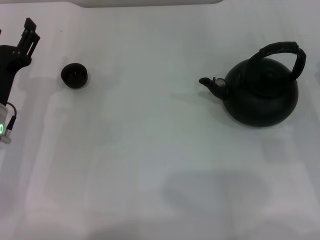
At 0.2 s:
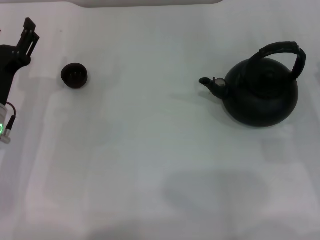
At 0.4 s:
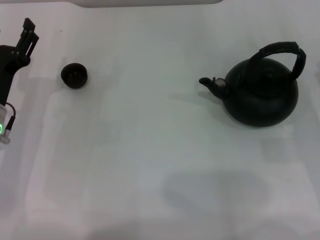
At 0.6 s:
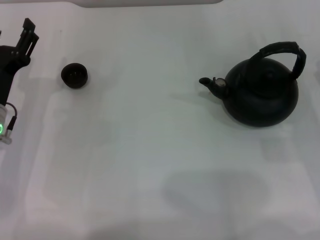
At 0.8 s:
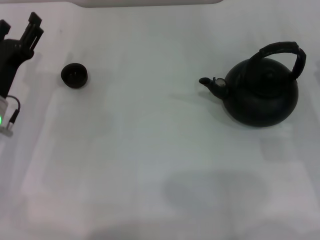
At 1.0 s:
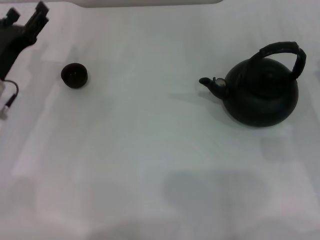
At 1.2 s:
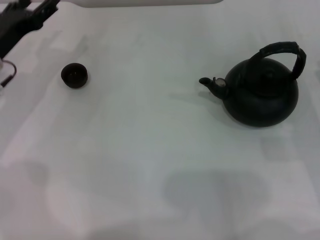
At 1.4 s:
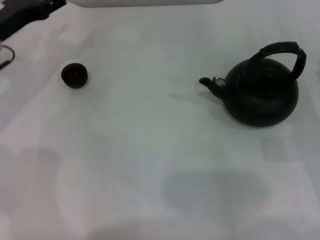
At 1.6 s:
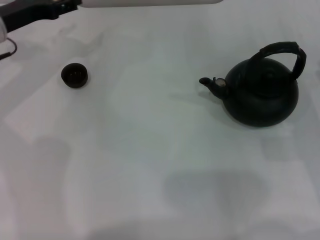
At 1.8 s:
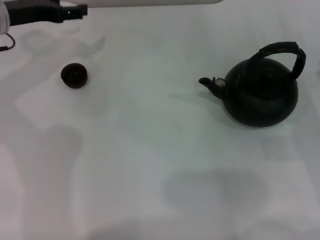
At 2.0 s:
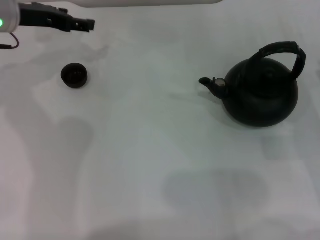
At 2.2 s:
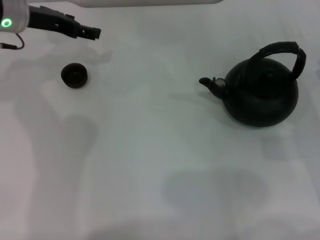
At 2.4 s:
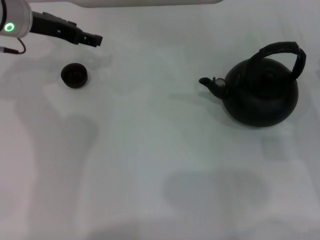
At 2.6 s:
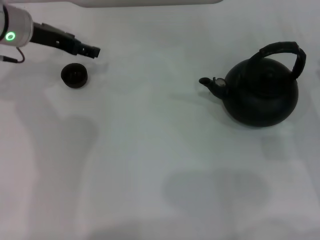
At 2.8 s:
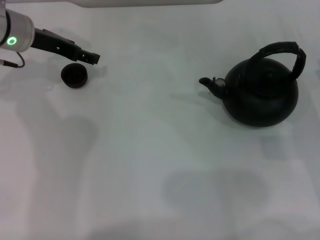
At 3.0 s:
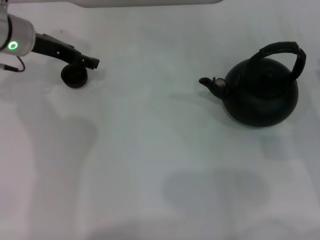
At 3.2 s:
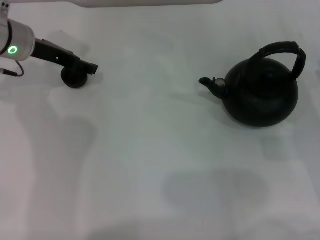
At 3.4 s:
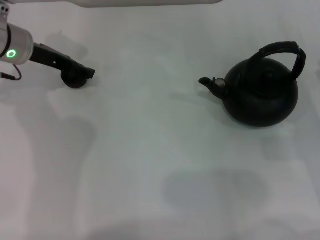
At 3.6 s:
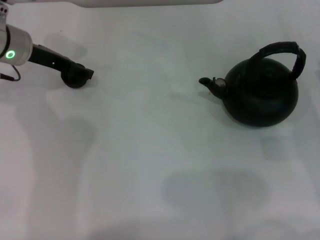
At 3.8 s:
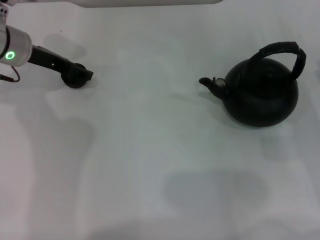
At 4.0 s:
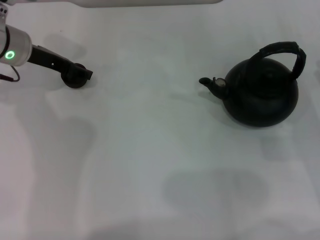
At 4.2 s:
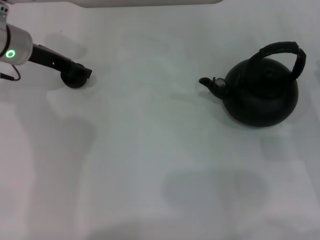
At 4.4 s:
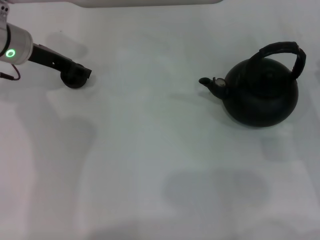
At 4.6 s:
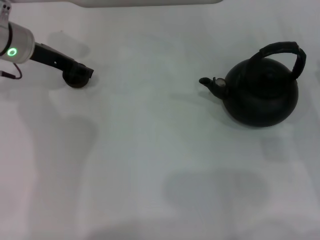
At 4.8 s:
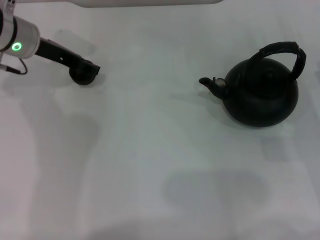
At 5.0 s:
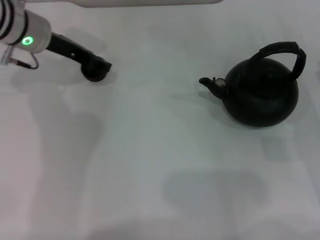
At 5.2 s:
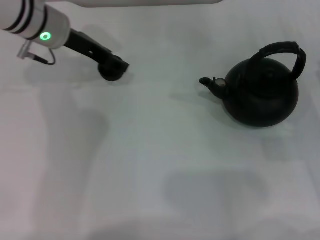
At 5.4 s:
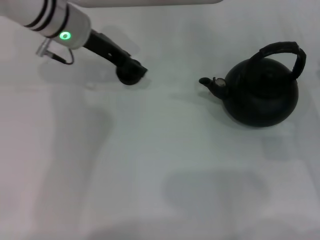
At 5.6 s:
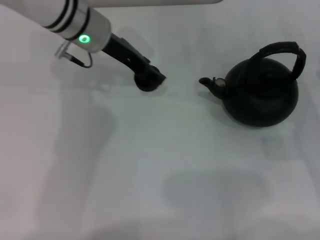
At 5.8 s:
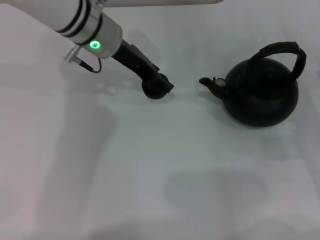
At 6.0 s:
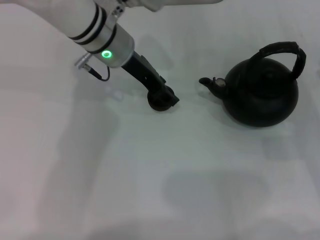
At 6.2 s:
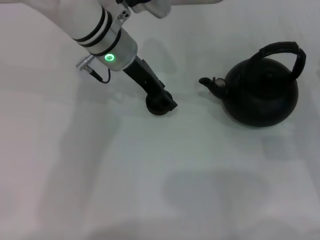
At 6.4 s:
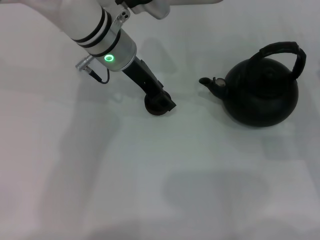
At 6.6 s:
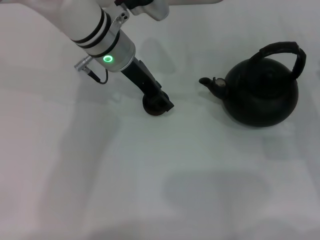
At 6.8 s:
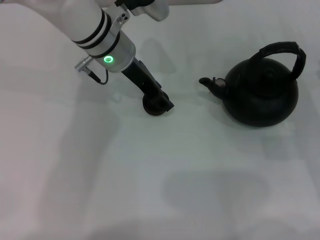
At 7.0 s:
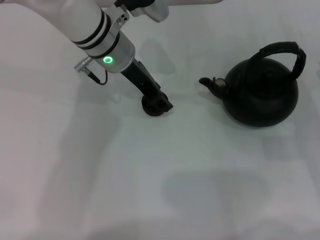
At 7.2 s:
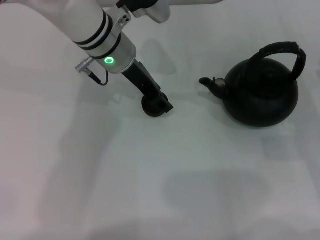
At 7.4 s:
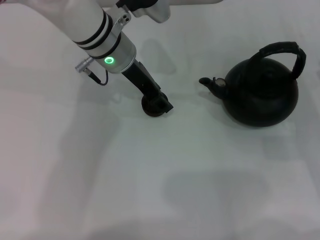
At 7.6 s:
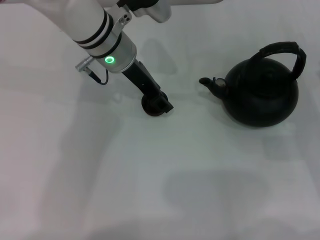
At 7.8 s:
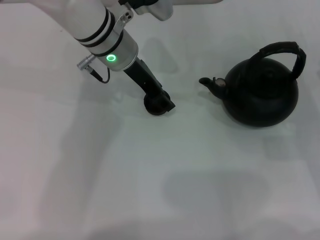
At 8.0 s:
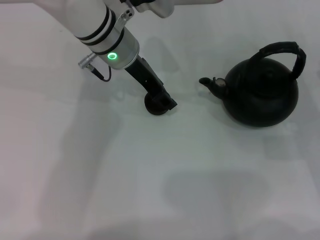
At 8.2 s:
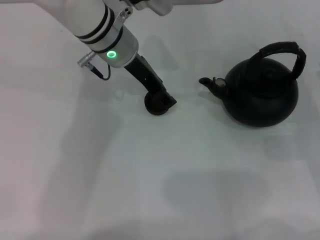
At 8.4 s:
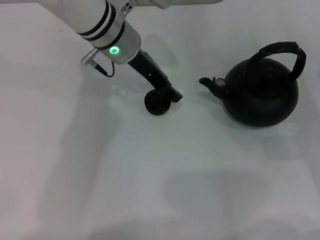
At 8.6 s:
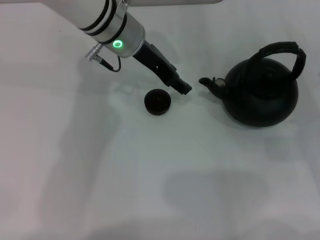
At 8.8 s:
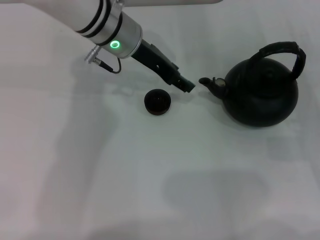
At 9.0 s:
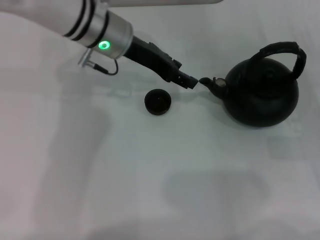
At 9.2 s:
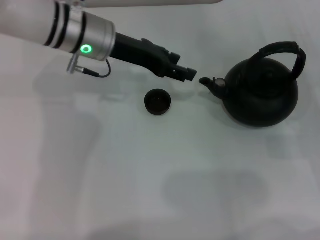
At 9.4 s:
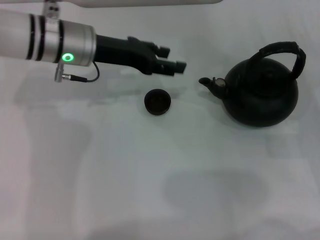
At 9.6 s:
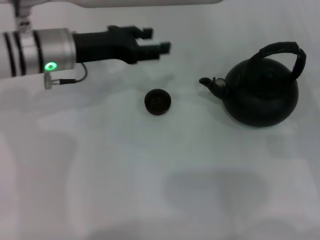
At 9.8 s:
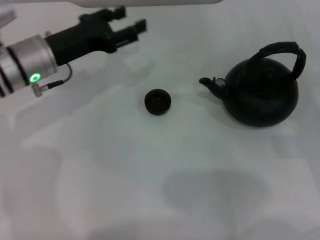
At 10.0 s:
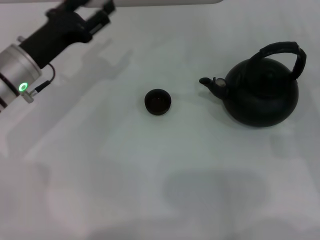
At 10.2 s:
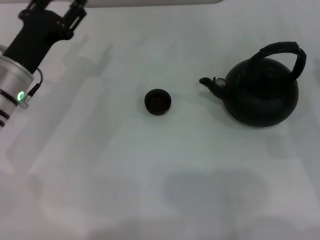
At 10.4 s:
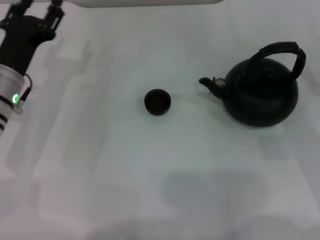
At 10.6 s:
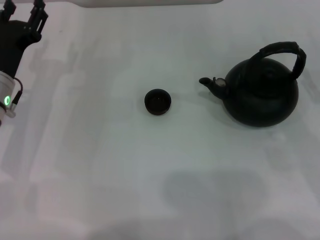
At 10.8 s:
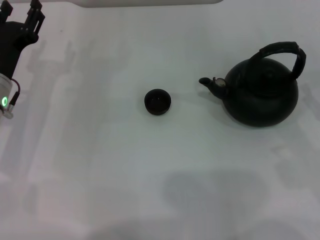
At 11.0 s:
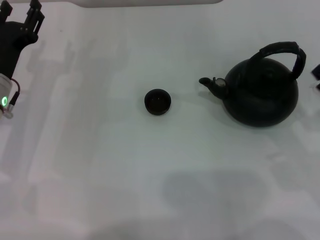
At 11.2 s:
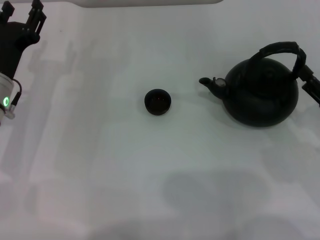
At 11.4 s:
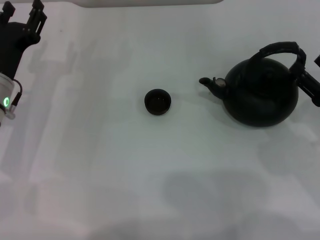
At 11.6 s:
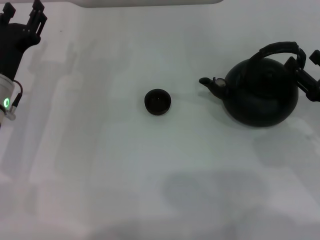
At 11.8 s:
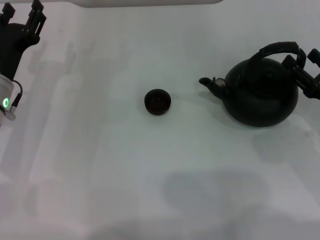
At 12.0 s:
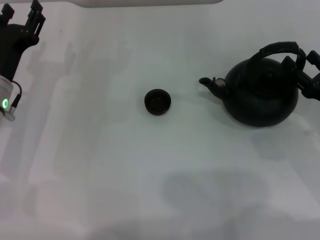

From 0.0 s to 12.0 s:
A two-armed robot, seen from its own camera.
Task of the whole recording: Grasp the handle of the teapot with one hand and pour tea into the teacup.
Step, from 0.0 s to 5.0 s: Pick up the teacup with the left gripper.
Step, from 5.4 s to 8.6 s: Place the teacup in the center of view with the left gripper.
From 0.0 s to 1.6 s: The left gripper travels forward and upward by approximately 15 cm.
From 3.0 s to 4.4 s: The left gripper closes.
From 4.4 s to 6.0 s: The left gripper moves to the right, approximately 15 cm.
From 6.0 s to 7.6 s: There are only small adjustments of the grippers.
From 9.0 s to 10.4 s: The left gripper goes roughly 20 cm to the left, backward and downward.
From 10.4 s to 12.0 s: The grippers move only a little.

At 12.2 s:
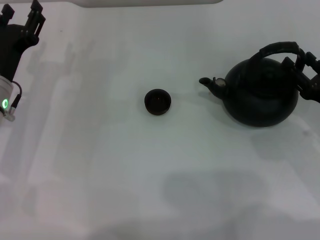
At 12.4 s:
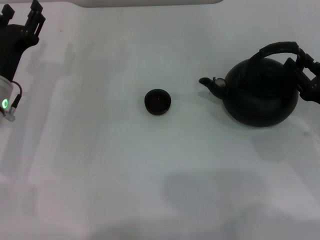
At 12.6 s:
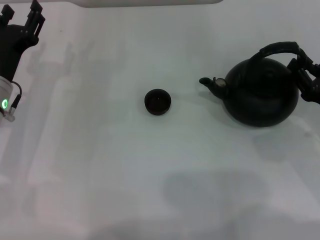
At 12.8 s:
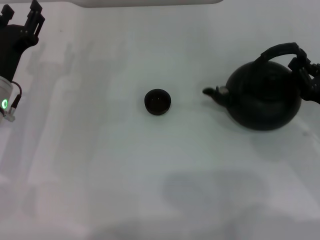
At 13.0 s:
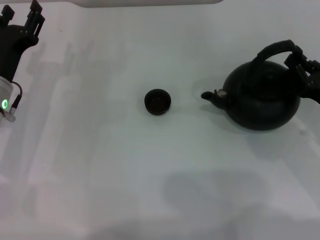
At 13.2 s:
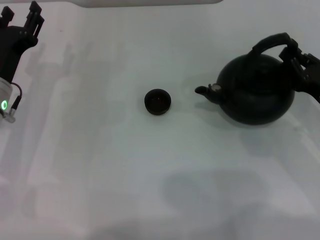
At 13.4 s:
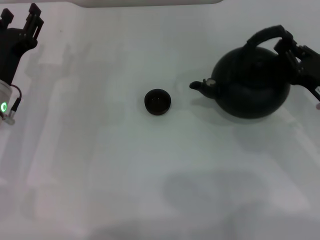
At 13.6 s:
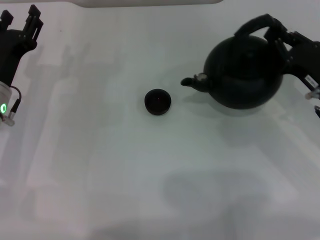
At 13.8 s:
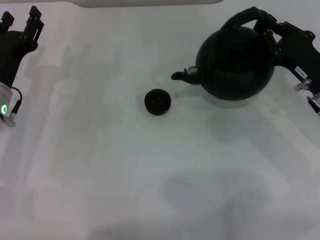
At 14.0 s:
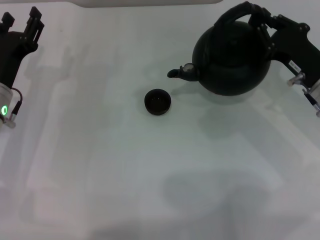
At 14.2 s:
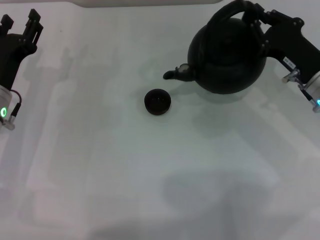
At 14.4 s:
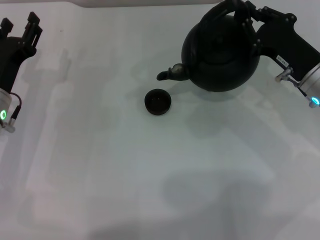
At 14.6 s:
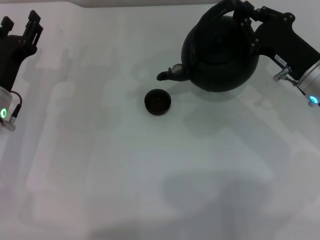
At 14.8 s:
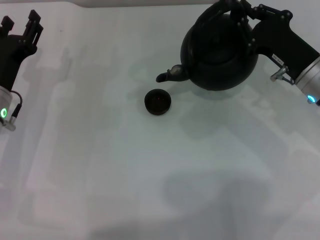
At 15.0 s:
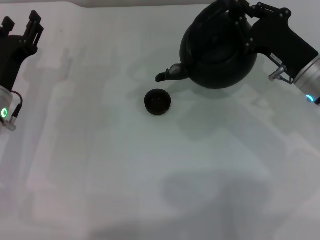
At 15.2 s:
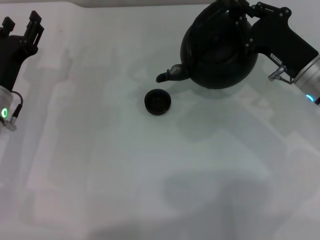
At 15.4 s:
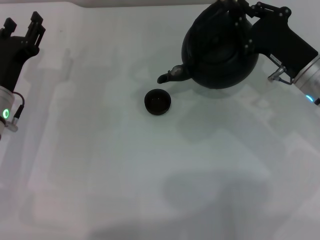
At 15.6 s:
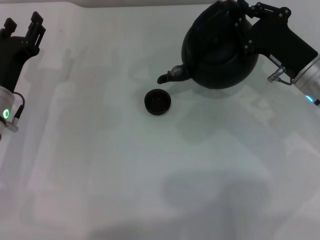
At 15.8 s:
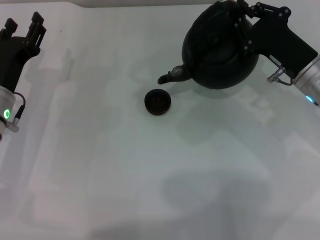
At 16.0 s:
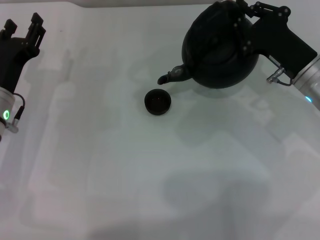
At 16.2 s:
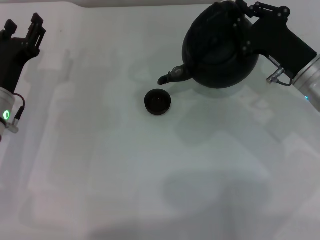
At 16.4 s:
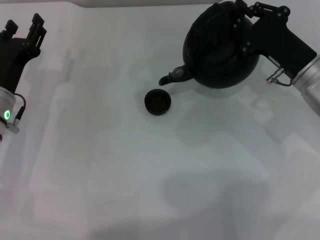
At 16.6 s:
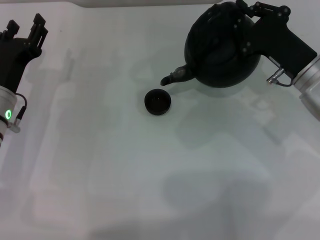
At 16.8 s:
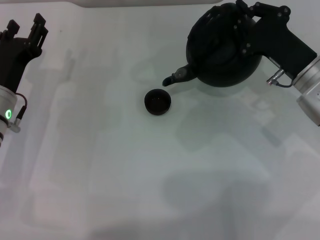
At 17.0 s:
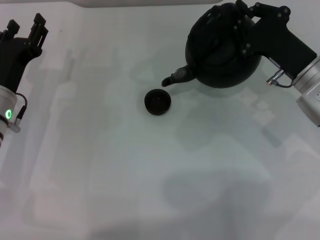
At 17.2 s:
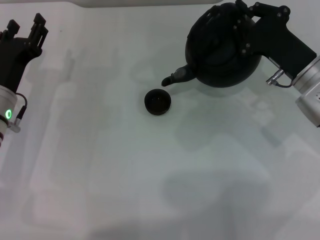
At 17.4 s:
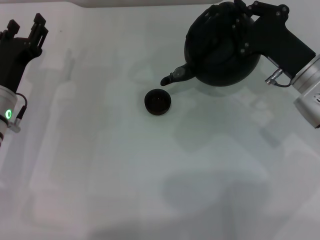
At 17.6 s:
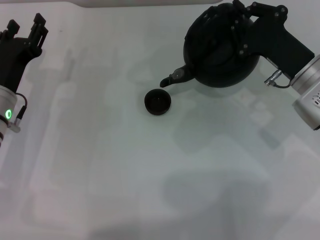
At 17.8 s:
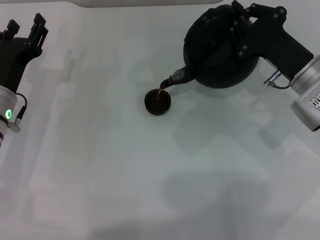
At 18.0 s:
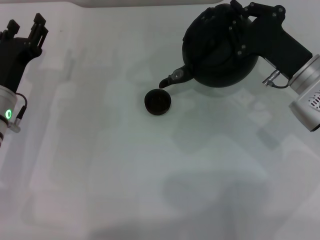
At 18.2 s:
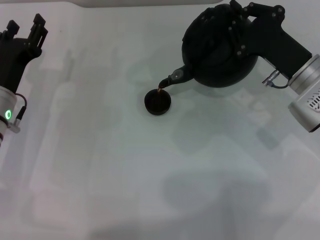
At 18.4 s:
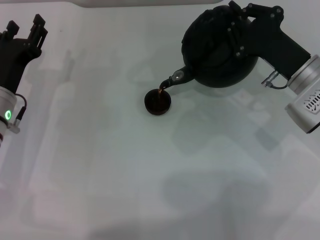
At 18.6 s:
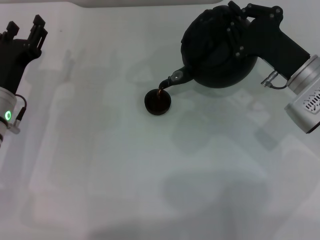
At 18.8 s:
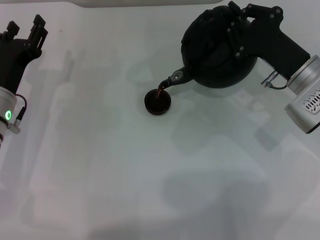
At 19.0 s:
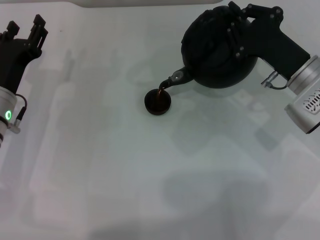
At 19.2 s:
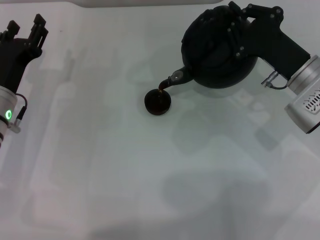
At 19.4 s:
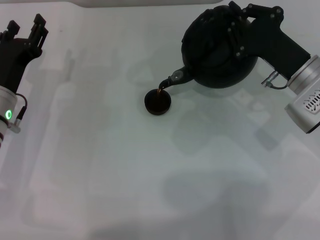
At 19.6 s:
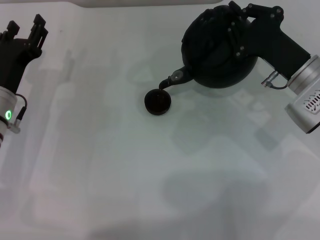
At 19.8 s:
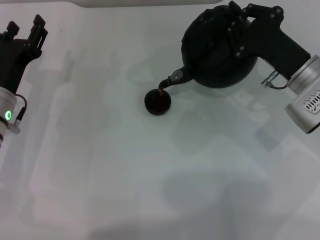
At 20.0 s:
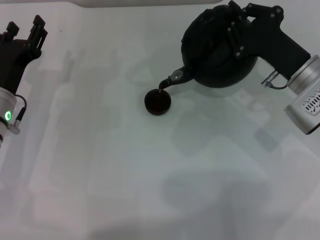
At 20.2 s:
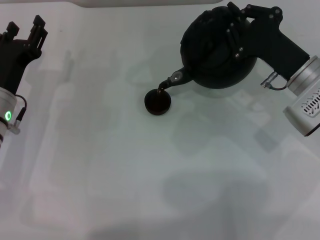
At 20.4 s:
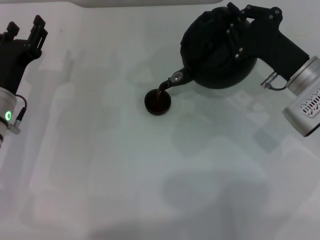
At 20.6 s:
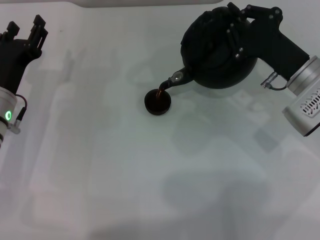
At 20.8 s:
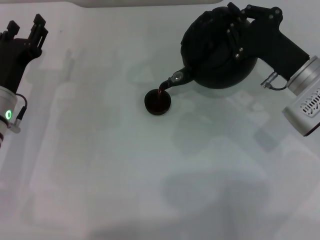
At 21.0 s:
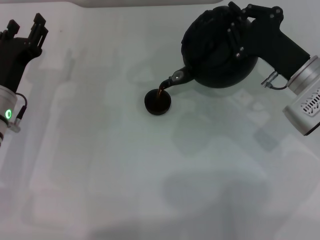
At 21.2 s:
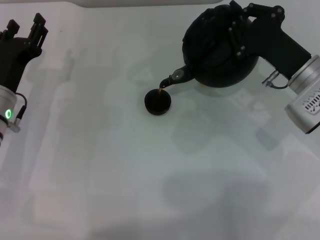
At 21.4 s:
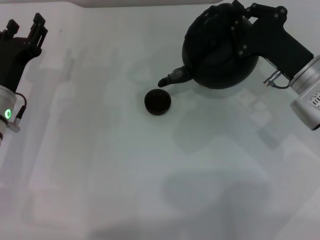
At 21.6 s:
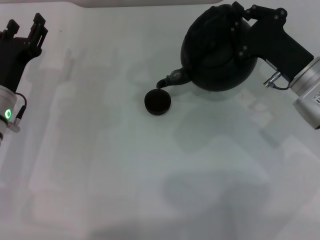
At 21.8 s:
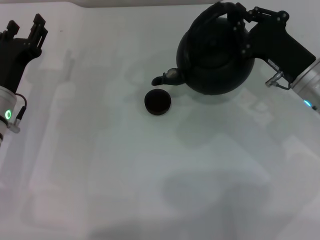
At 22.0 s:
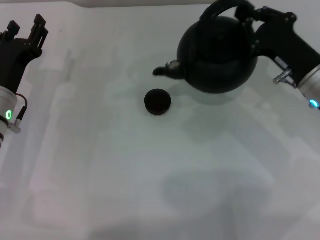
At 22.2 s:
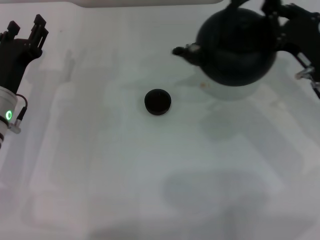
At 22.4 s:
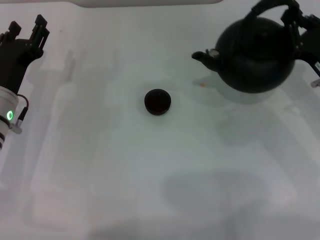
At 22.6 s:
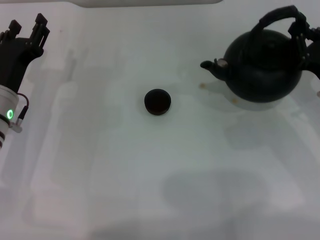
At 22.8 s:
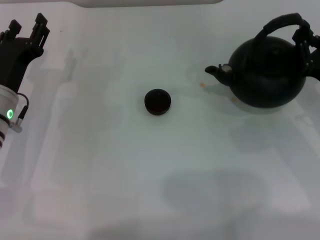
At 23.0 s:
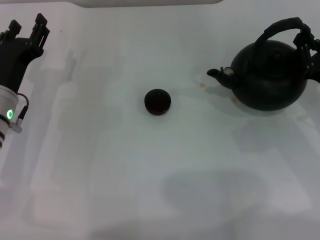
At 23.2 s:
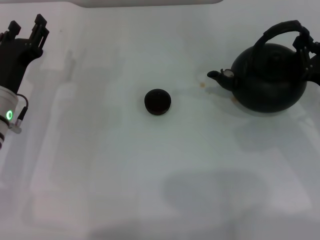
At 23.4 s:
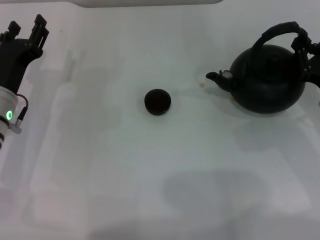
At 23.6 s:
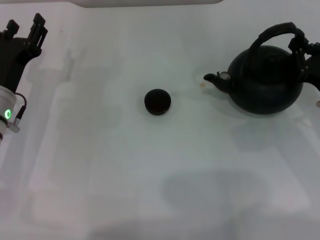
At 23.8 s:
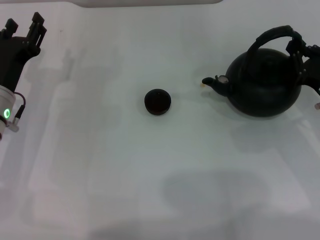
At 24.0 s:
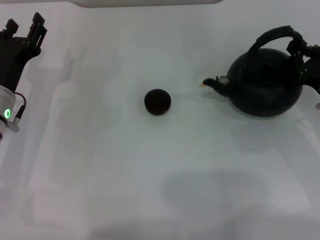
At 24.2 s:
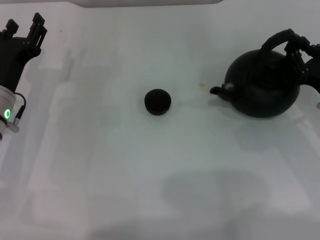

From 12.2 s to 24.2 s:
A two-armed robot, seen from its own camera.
Task of the whole recording: Grasp the handle of the teapot with one hand and pour tea into the teacup.
Step, from 13.6 s to 21.6 s: Pour tea into the teacup with the right gripper.
From 12.2 s to 13.8 s: The right gripper shifts by approximately 10 cm, and closes up.
From 15.2 s to 16.6 s: There are only small adjustments of the grippers.
From 16.6 s to 18.2 s: There are only small adjustments of the grippers.
From 18.2 s to 21.2 s: Both grippers stay put.
From 21.2 s to 22.6 s: The right gripper goes roughly 5 cm to the right.
From 22.6 s to 24.2 s: The grippers move only a little.
